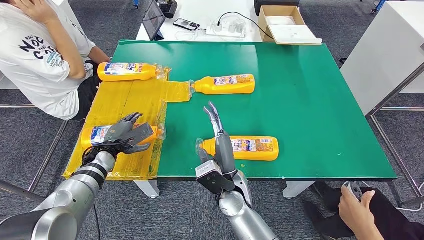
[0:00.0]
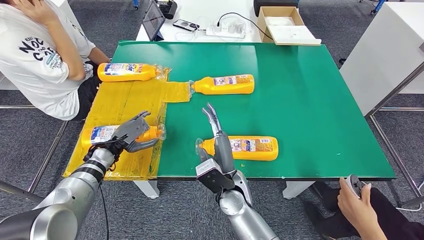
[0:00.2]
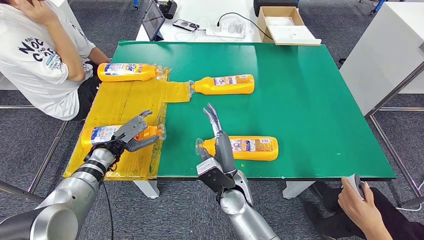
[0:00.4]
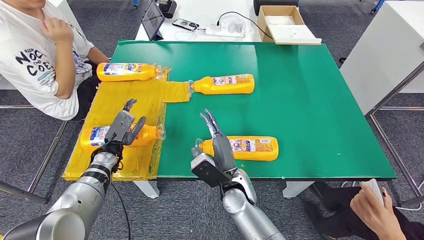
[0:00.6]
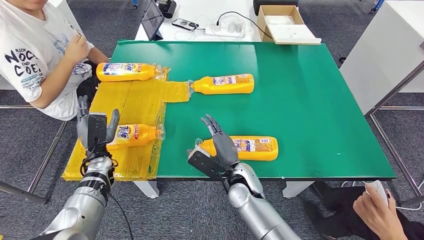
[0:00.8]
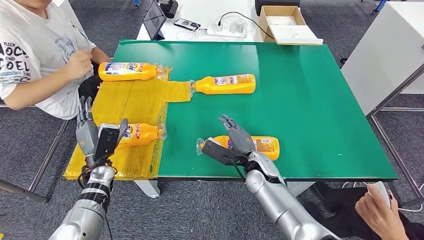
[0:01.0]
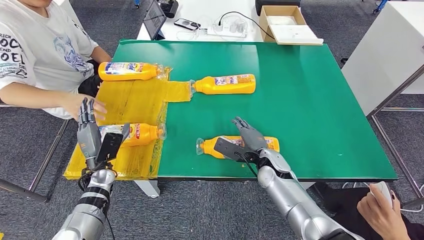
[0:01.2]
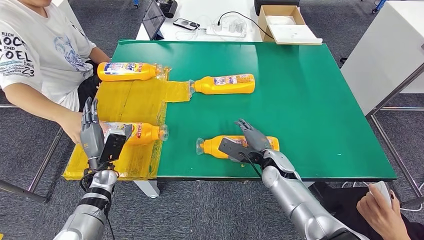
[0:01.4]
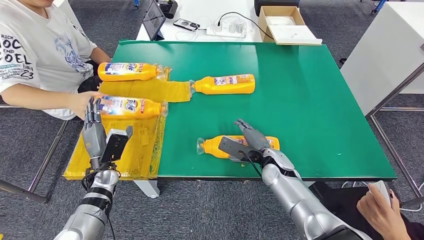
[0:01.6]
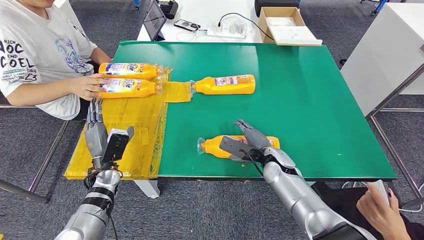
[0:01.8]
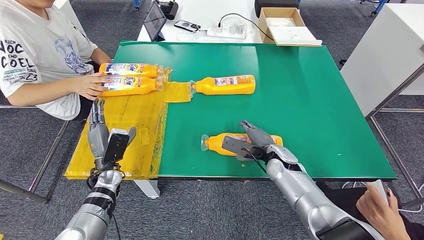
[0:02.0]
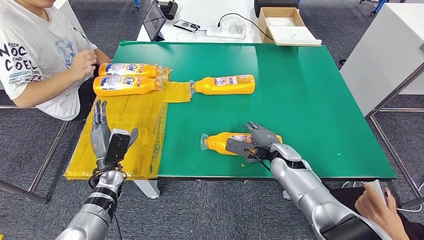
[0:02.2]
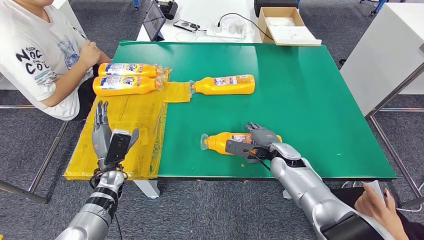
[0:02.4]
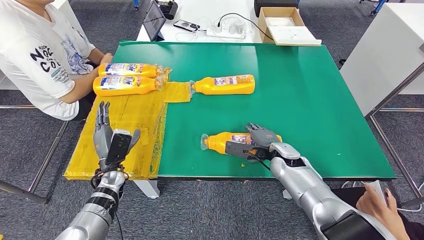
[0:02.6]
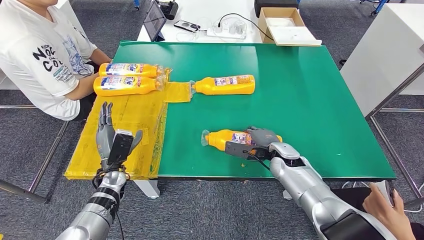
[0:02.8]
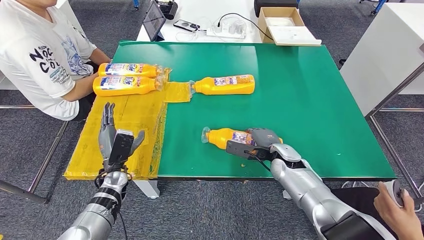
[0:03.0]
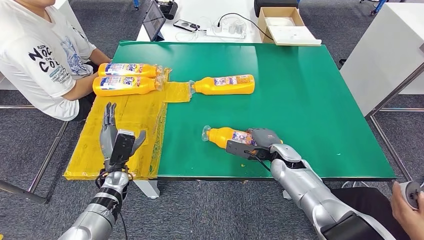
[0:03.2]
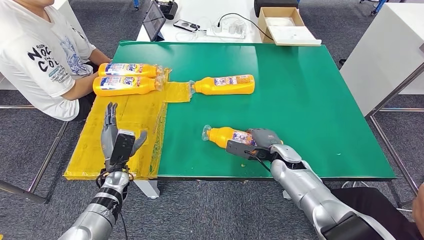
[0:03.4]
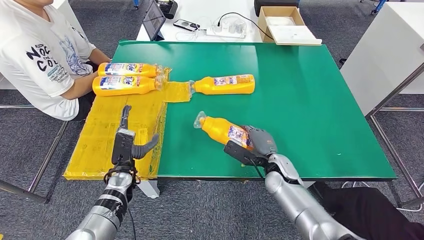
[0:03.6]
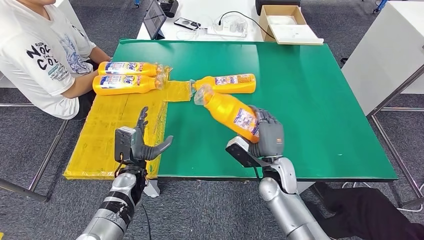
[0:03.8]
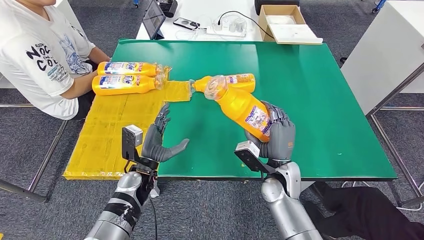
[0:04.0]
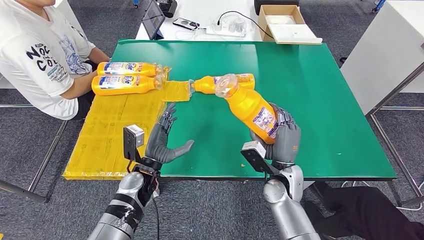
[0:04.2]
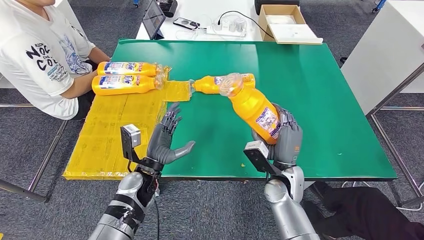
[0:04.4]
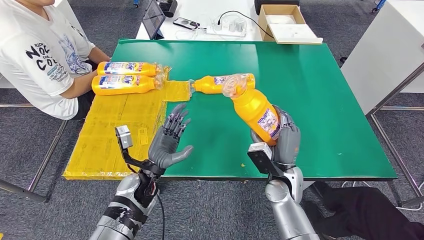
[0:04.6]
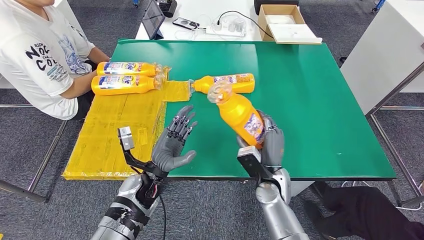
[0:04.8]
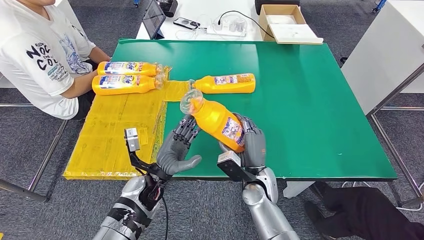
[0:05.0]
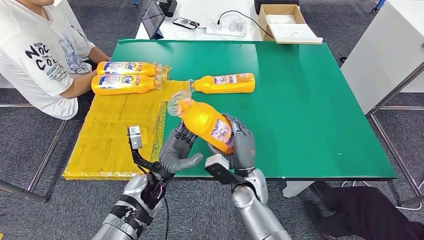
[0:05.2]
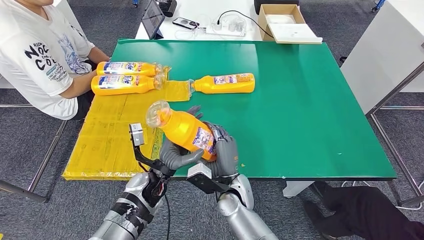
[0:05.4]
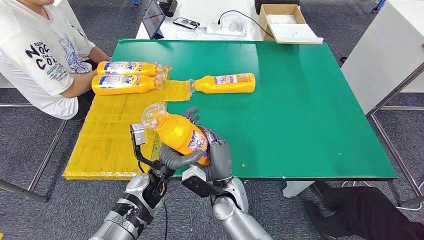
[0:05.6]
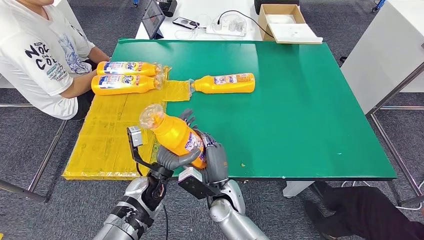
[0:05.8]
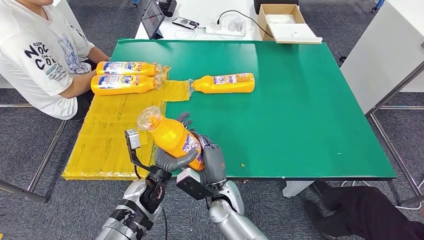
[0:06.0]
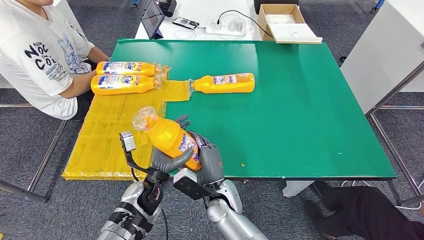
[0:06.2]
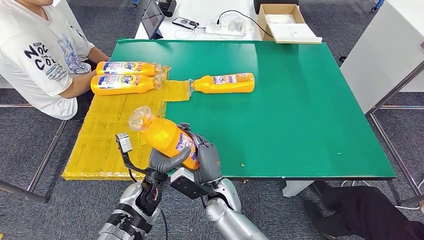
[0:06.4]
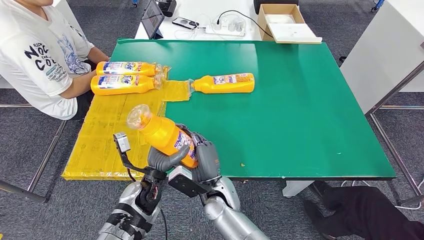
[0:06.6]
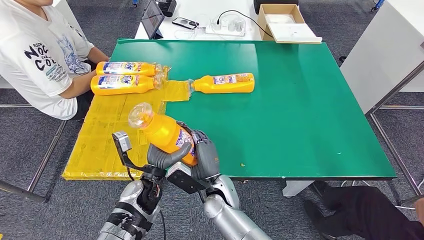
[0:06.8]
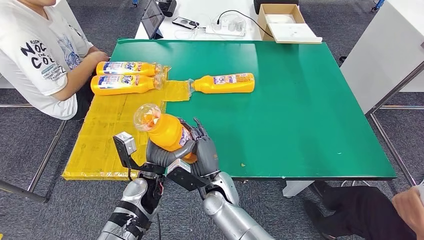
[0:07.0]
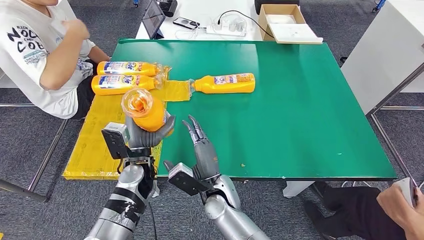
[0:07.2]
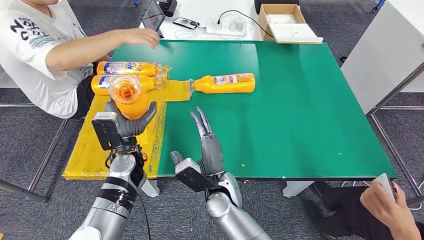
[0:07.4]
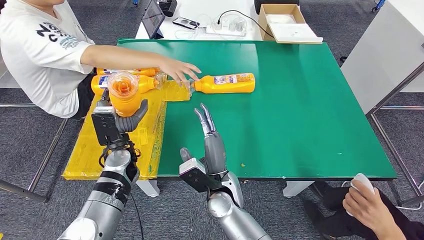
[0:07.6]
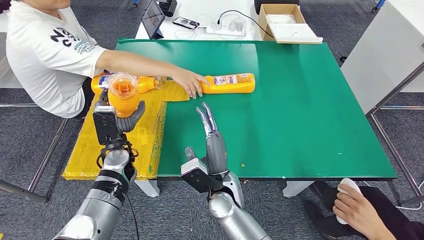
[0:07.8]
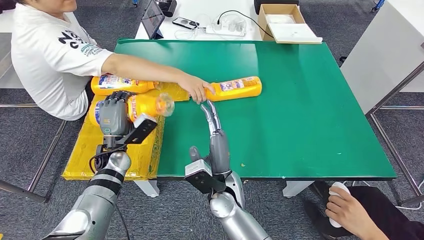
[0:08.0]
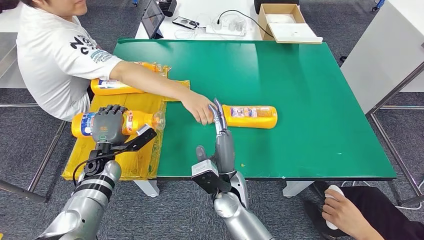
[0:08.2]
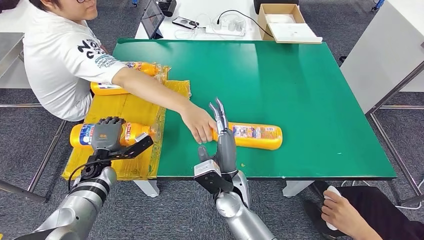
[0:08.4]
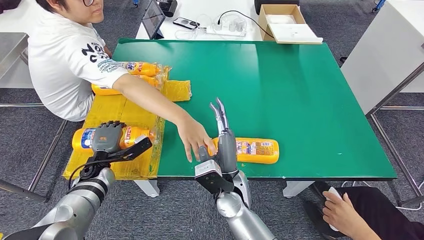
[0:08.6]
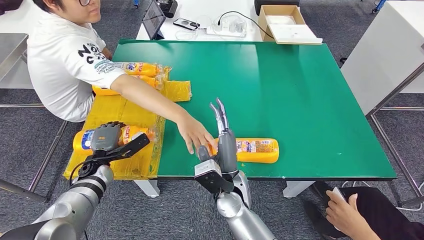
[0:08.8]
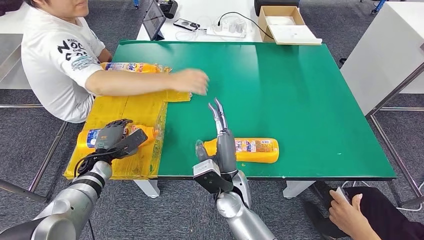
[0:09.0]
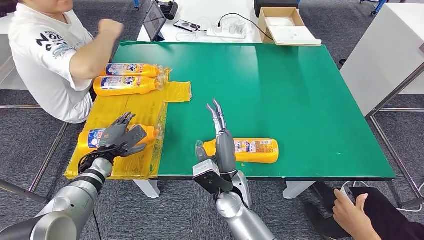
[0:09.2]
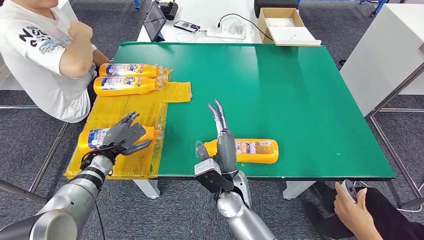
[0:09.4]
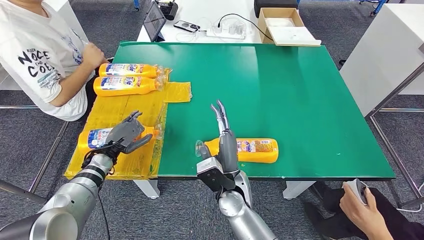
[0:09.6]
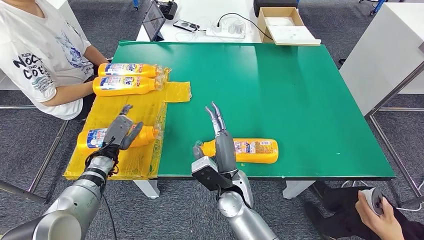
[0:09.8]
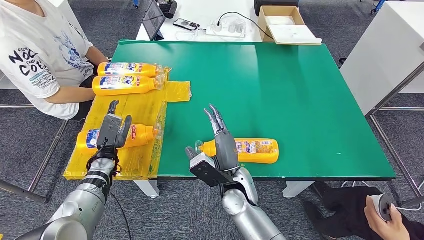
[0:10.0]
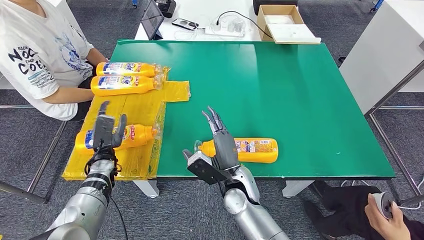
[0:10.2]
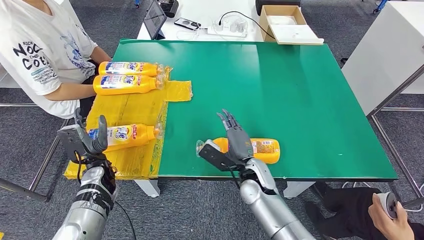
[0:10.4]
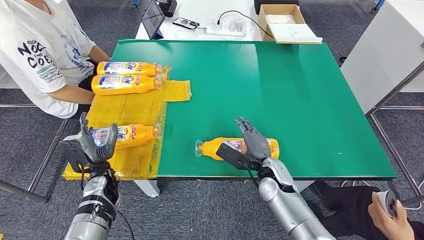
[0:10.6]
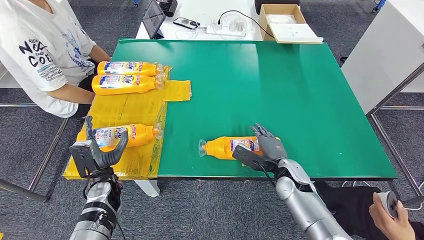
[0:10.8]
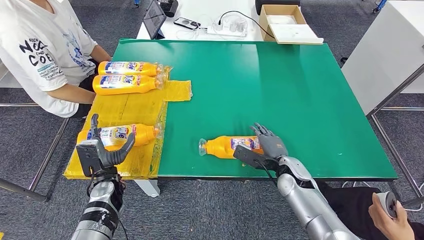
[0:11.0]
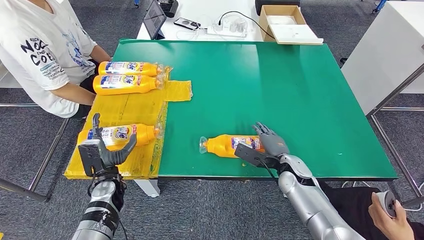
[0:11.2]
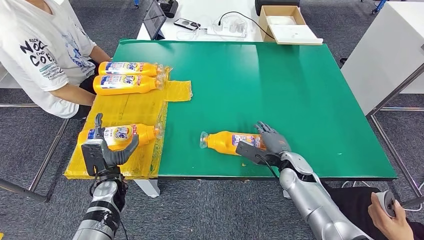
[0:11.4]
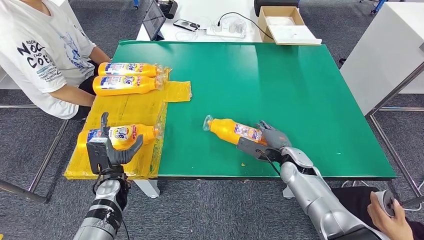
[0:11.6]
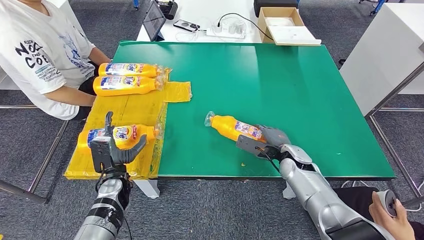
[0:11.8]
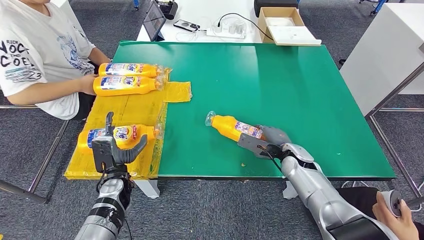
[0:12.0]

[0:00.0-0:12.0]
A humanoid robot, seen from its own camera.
Step, 0:00.8 to 0:04.2: Pick up the fast-moving consumer goods bottle from the table.
Step, 0:04.4 to 0:09.6: Flip the fast-moving consumer goods bottle to the front side.
0:04.4 to 0:06.0: The right hand is displaced to the left by roughly 15 cm.

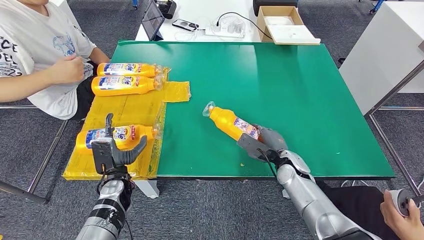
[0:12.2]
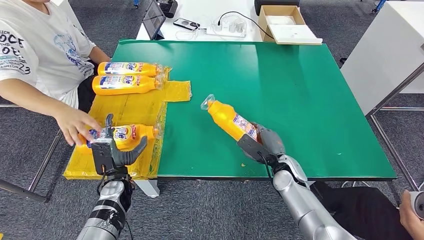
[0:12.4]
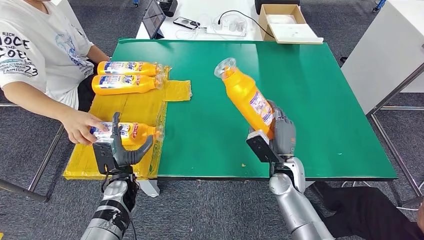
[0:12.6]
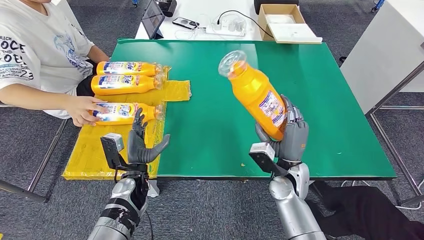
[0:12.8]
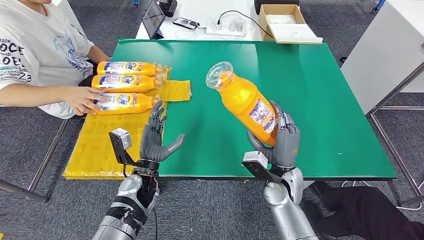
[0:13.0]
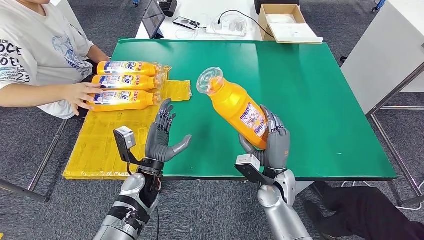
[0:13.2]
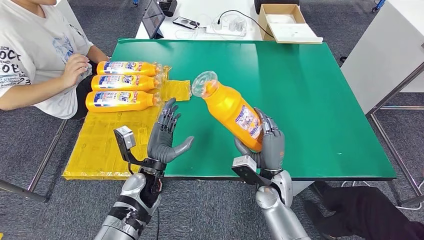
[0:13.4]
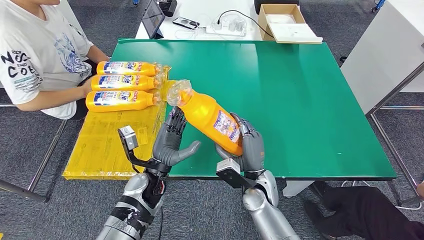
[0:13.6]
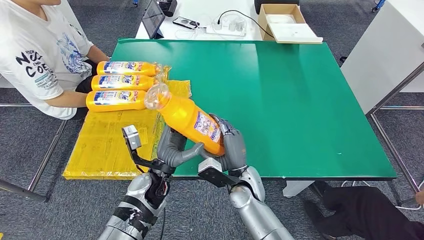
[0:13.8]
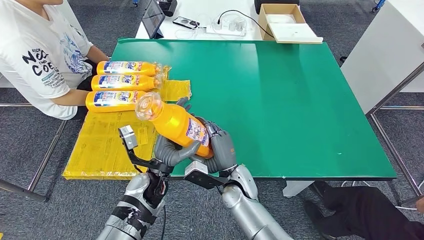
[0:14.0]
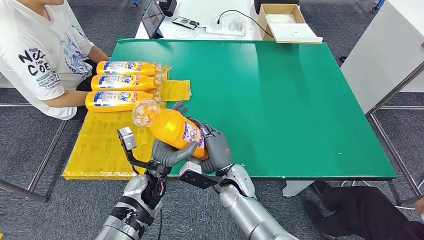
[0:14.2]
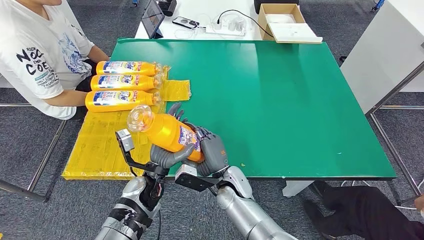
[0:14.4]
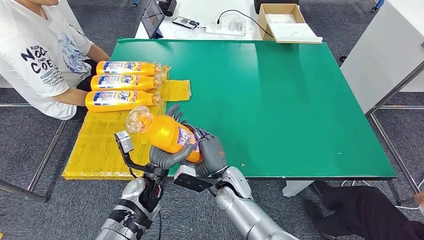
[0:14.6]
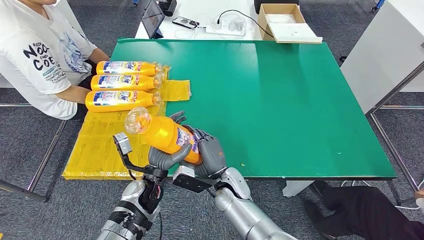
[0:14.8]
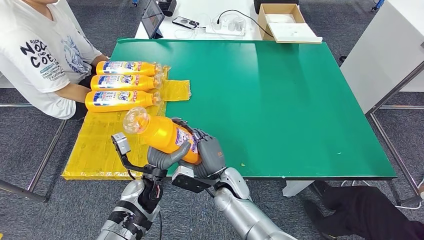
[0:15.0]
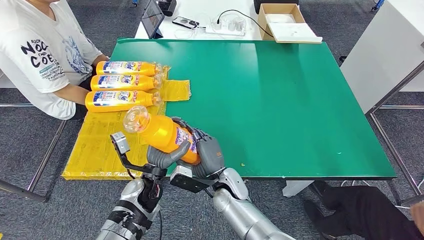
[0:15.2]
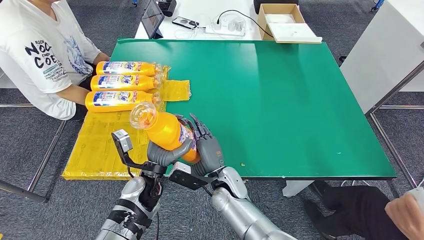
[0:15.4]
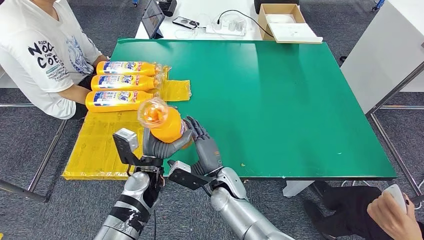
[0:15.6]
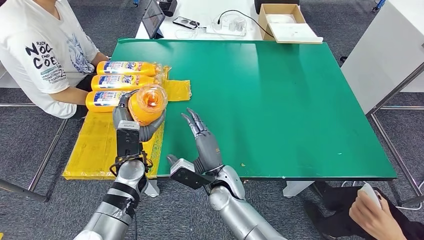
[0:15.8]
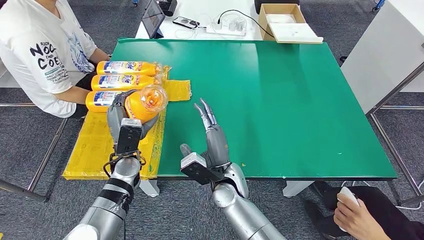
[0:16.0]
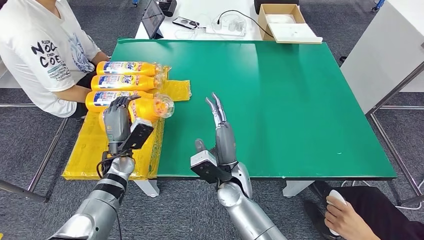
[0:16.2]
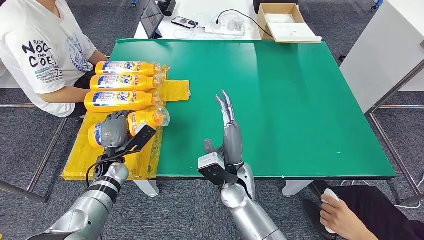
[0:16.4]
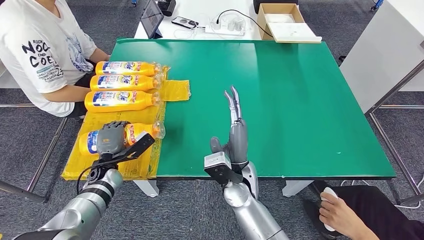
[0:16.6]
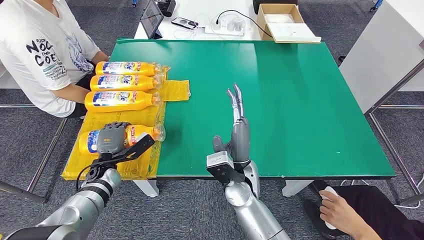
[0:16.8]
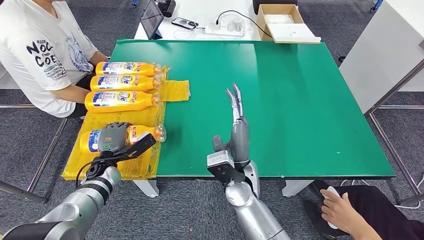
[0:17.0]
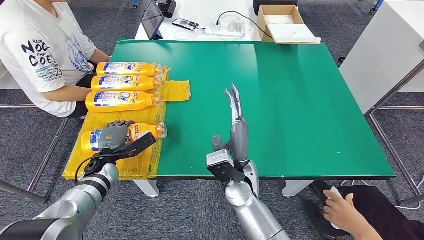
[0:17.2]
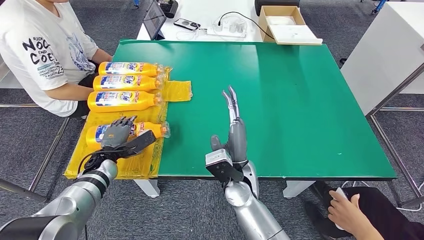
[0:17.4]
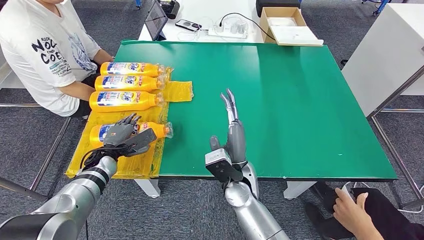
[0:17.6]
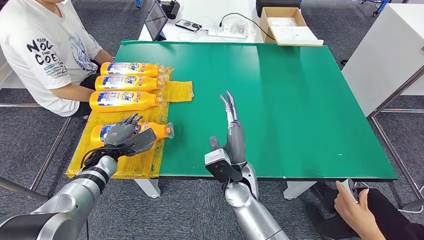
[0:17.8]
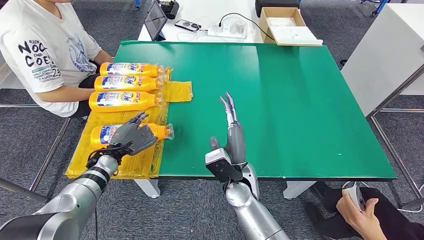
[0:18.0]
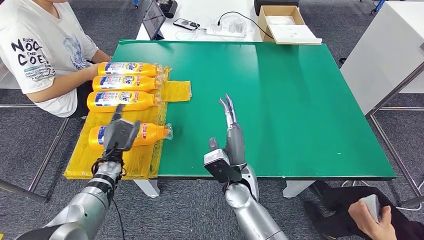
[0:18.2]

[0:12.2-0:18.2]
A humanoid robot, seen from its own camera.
Step, 0:13.6 to 0:18.2: Flip the fast-moving consumer goods bottle to the front side.
0:13.8 to 0:15.2: The right hand travels to the left by about 5 cm.
0:15.2 to 0:16.6: The left hand shifts approximately 15 cm to the left. The right hand heads upward, covering approximately 5 cm.
